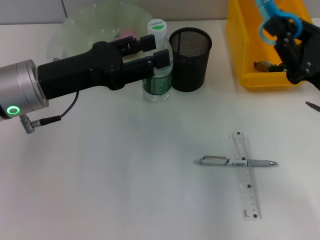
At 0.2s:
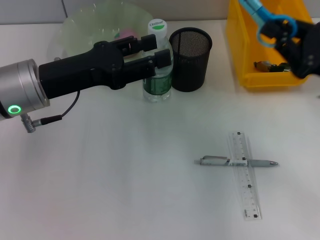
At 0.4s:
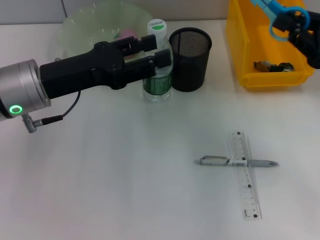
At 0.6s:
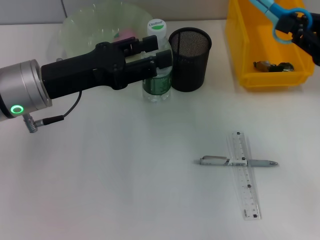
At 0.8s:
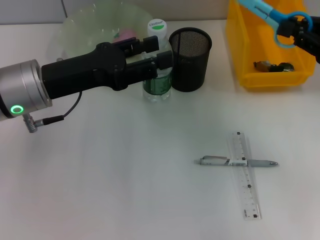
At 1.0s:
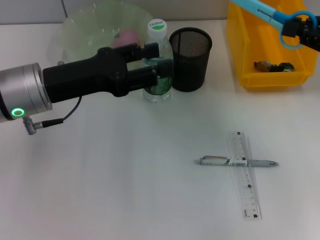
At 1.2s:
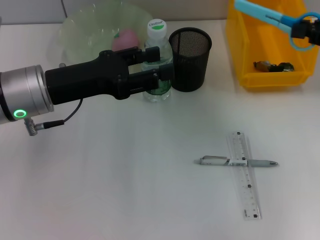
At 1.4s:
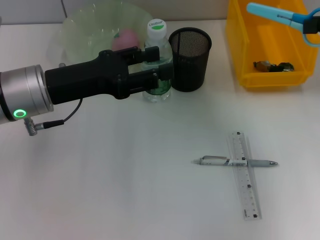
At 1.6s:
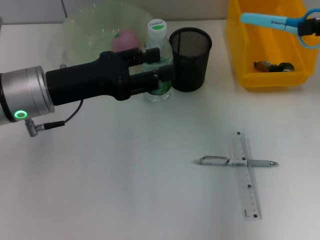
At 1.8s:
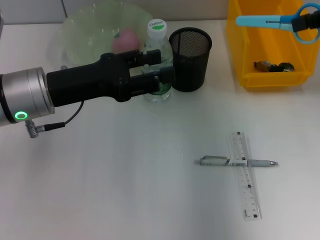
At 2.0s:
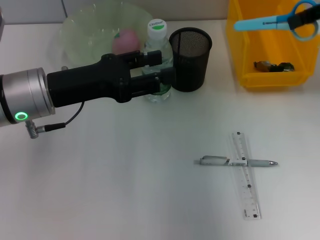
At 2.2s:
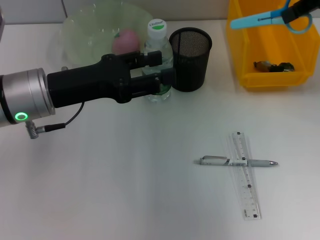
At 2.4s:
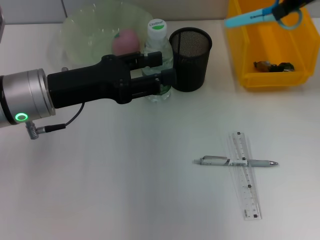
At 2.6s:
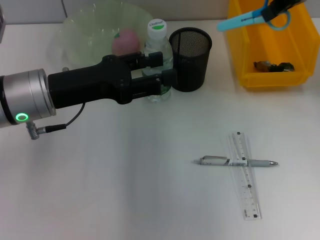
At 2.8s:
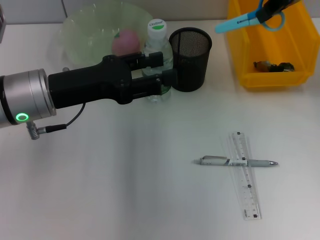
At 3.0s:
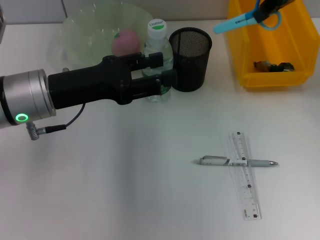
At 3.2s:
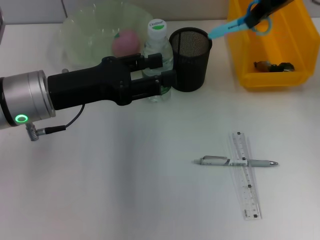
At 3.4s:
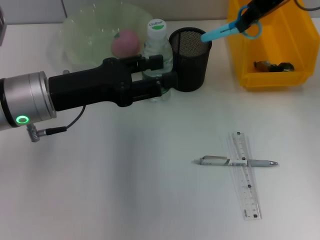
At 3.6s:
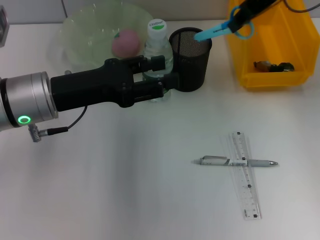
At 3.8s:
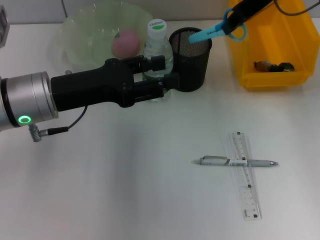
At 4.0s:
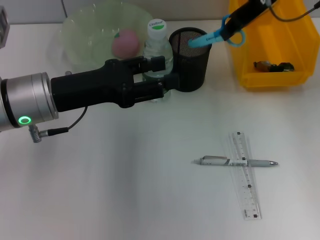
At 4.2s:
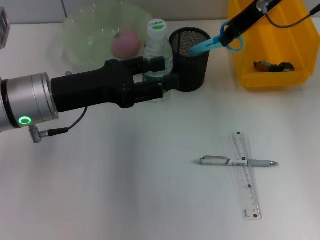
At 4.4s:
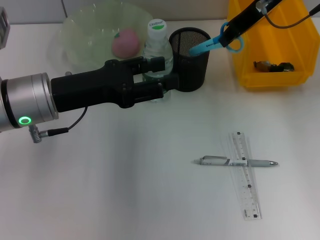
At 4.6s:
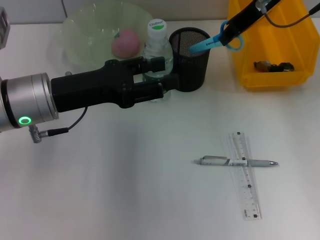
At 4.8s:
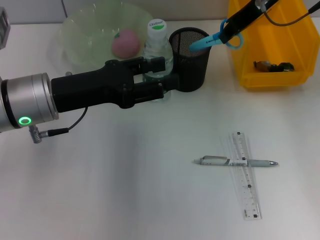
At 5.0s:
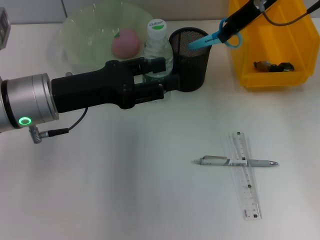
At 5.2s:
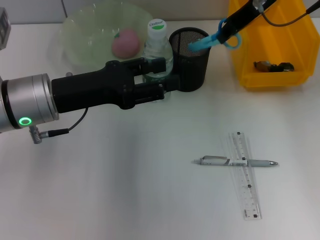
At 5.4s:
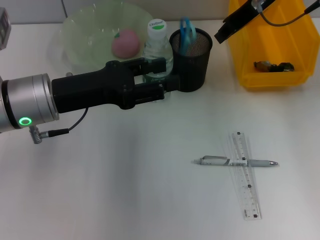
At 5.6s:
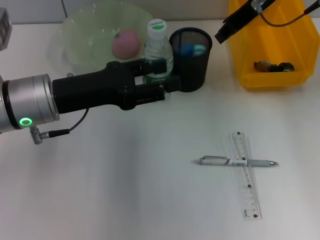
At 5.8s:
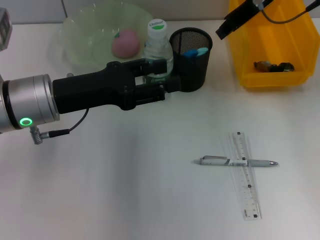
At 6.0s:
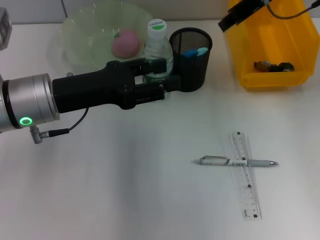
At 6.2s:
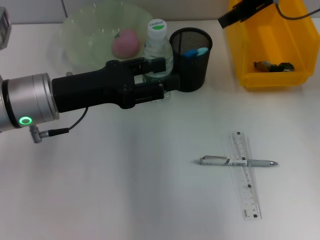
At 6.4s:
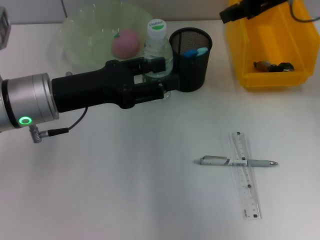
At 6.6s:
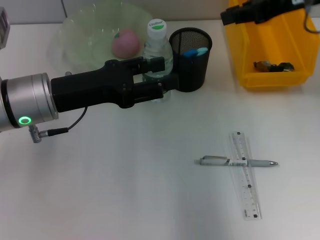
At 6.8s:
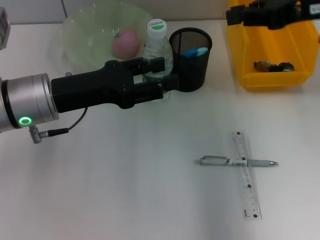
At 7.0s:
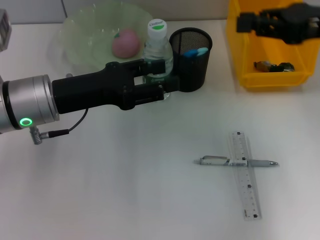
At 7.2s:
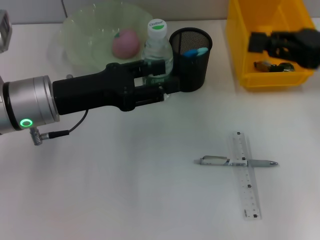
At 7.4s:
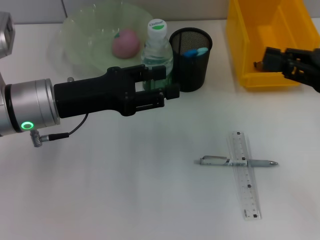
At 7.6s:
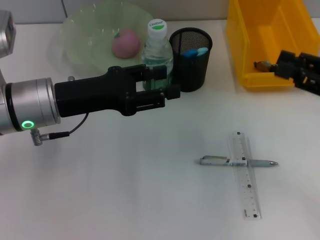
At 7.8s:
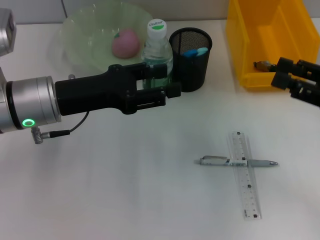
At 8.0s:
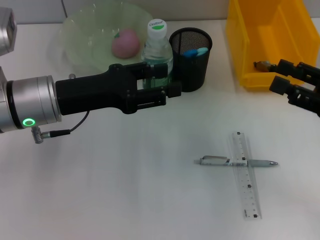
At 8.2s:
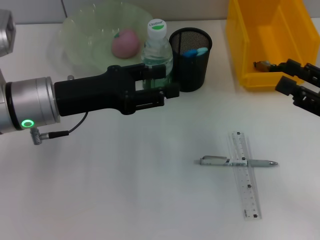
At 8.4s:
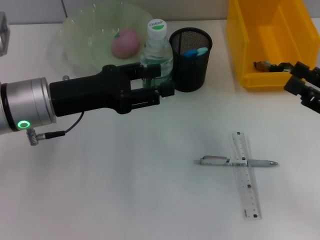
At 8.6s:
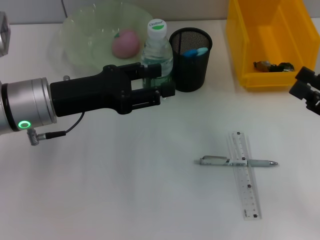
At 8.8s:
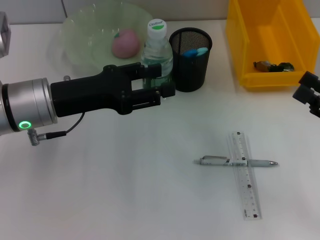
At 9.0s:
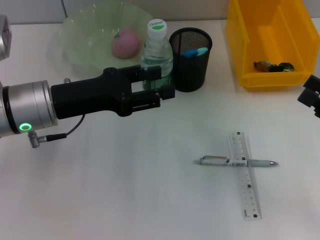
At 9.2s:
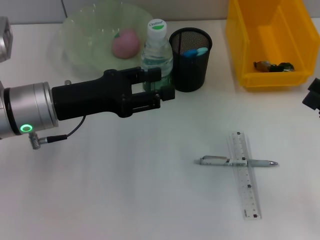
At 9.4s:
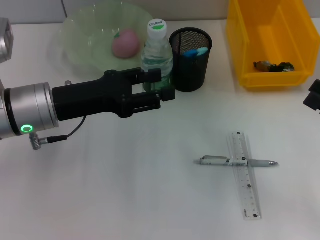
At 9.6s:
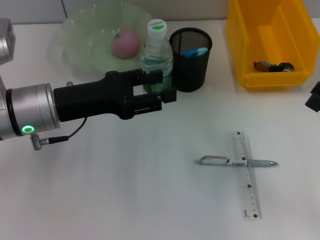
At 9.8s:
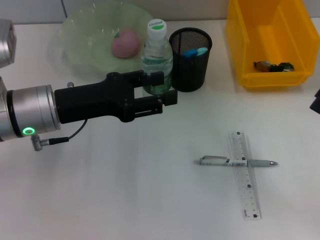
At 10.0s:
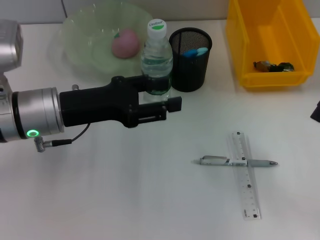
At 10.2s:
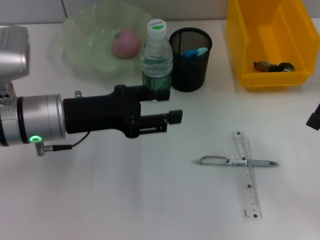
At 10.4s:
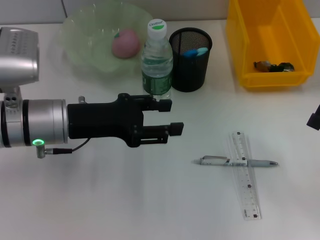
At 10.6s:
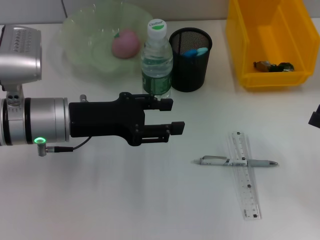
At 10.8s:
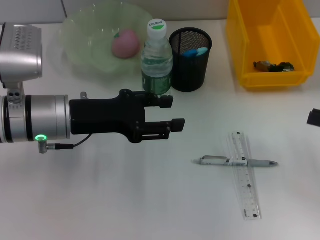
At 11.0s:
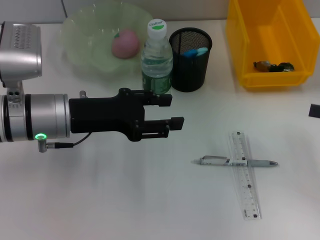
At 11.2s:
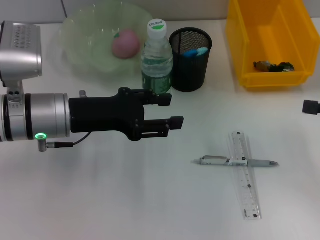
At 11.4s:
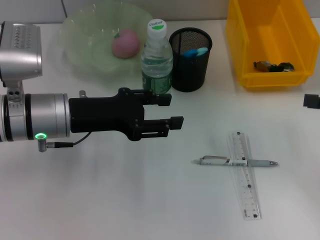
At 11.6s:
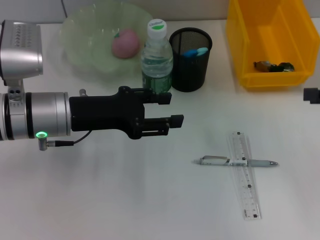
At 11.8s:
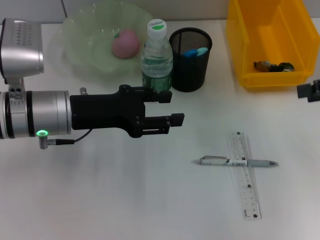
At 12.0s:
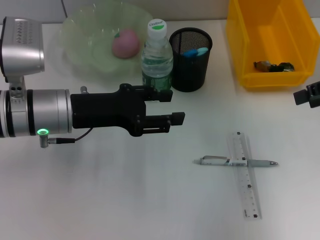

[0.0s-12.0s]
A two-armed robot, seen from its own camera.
Step, 0.0s to 5.6s: Place the blue scissors into the pen holder with the right hand.
0.0s to 1.6s: The right gripper shifts about 15 cm upward.
1.6s to 3.0s: The right gripper goes approximately 15 cm to the left and forward.
3.0s to 4.4s: The right gripper is displaced downward and to the left by some 5 cm.
4.4s to 6.0s: There are only small adjustments of the grippers.
6.0s to 7.6s: The right gripper heads backward, to the right and downward, covering approximately 25 cm.
7.6s to 9.0s: The right gripper is displaced backward by about 5 cm, and opens.
9.0s to 10.4s: The grippers move only a little.
10.4s to 12.0s: The right gripper heads forward and upward, covering roughly 20 cm.

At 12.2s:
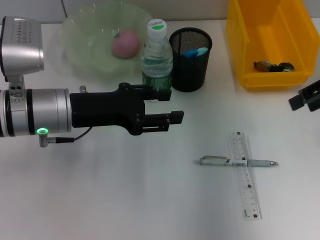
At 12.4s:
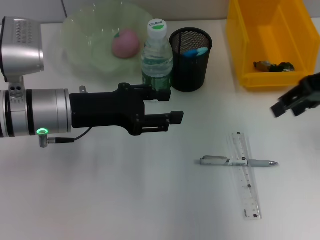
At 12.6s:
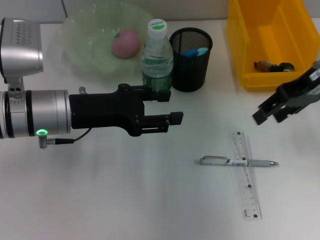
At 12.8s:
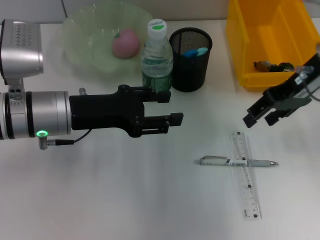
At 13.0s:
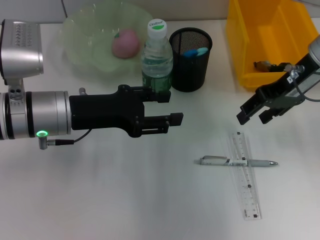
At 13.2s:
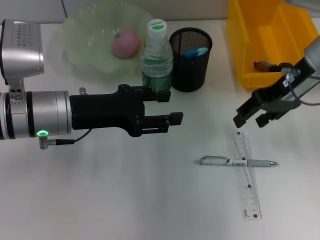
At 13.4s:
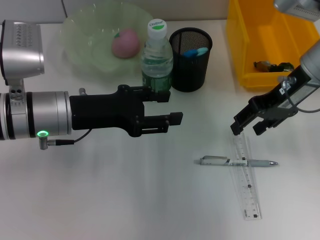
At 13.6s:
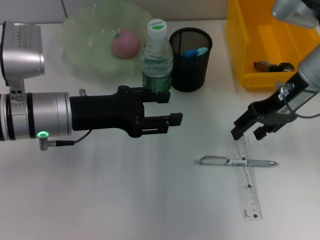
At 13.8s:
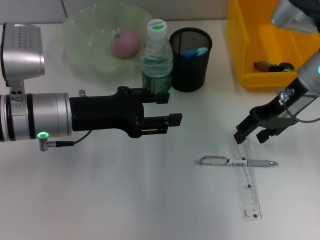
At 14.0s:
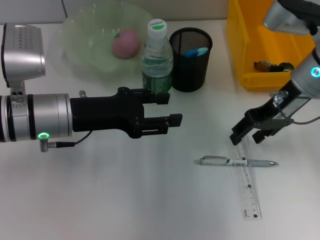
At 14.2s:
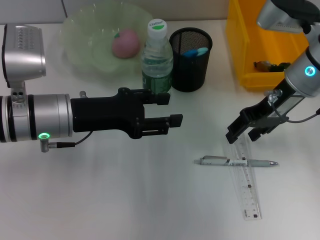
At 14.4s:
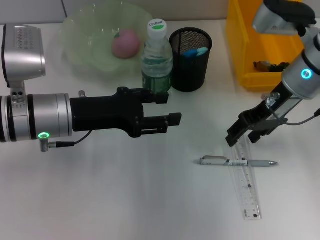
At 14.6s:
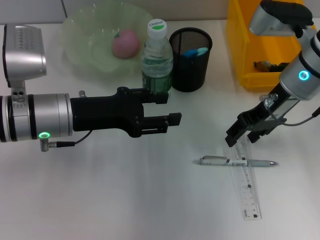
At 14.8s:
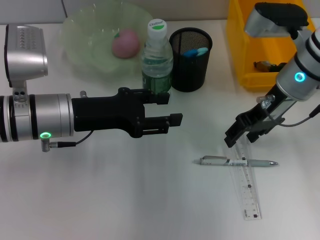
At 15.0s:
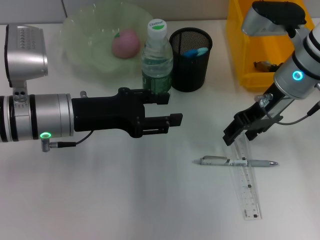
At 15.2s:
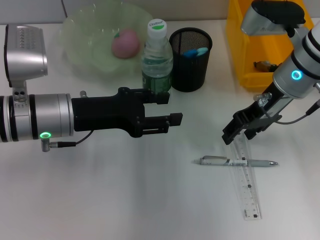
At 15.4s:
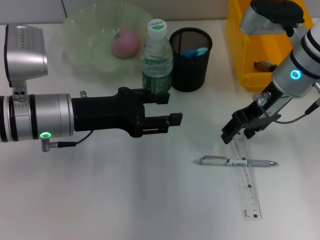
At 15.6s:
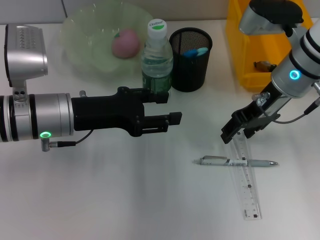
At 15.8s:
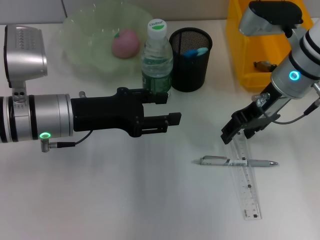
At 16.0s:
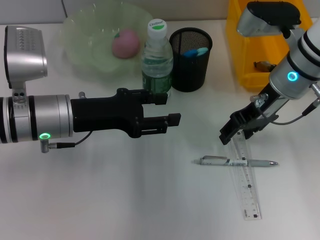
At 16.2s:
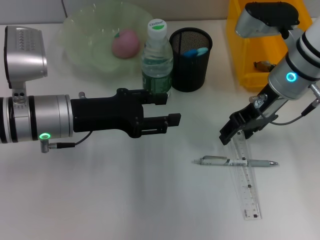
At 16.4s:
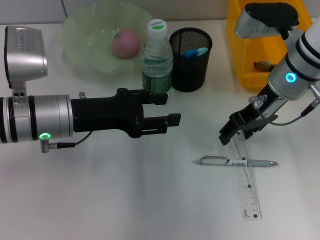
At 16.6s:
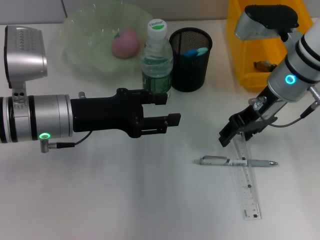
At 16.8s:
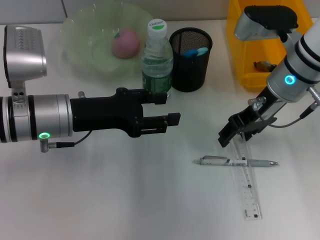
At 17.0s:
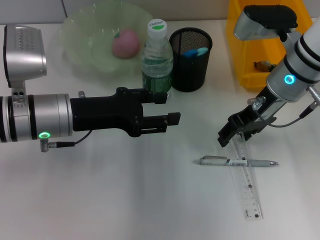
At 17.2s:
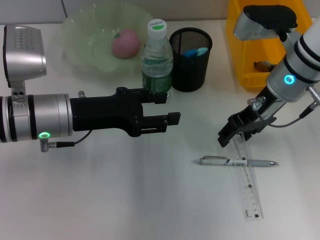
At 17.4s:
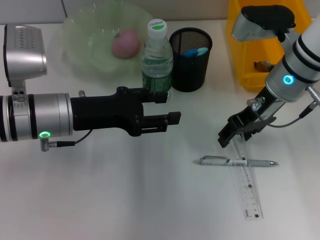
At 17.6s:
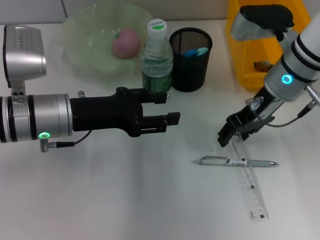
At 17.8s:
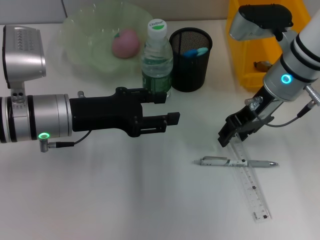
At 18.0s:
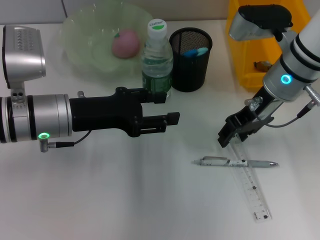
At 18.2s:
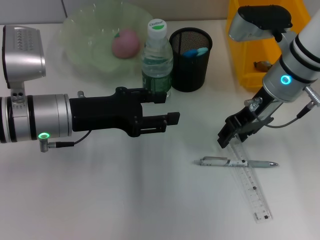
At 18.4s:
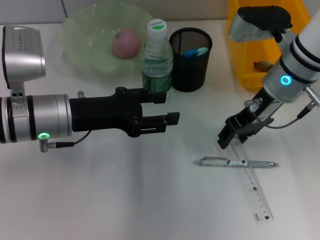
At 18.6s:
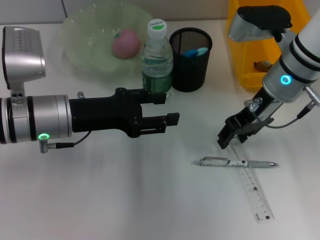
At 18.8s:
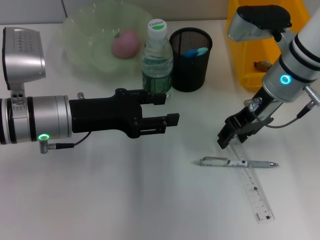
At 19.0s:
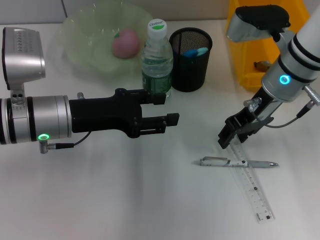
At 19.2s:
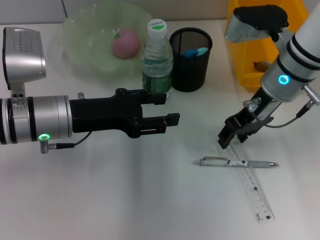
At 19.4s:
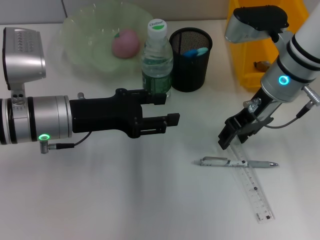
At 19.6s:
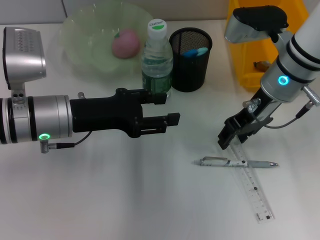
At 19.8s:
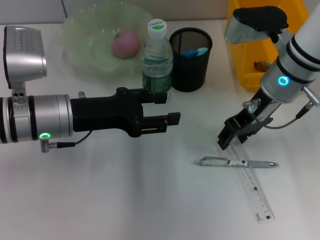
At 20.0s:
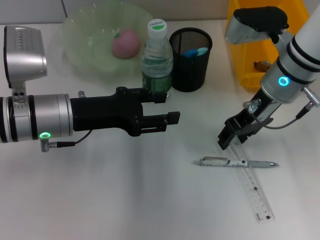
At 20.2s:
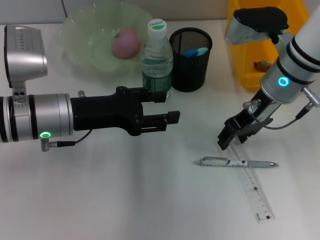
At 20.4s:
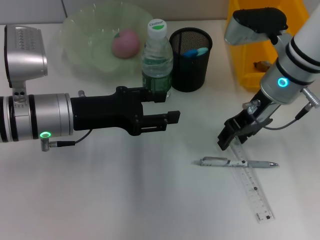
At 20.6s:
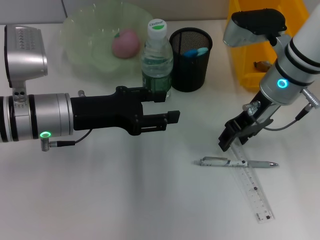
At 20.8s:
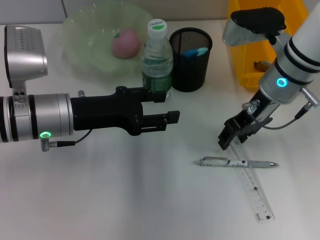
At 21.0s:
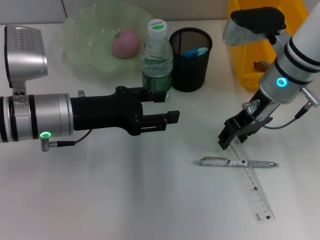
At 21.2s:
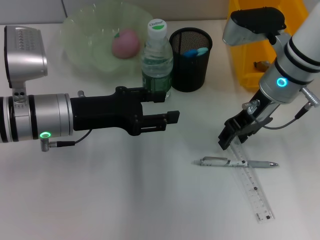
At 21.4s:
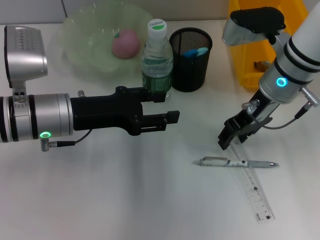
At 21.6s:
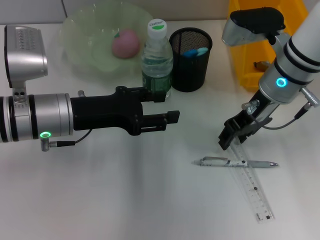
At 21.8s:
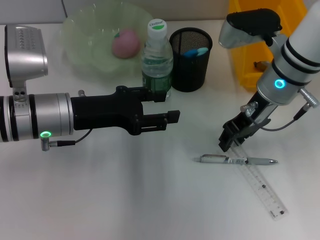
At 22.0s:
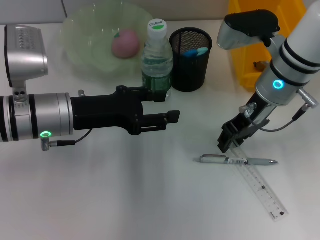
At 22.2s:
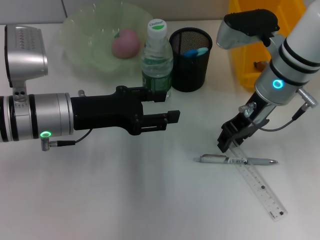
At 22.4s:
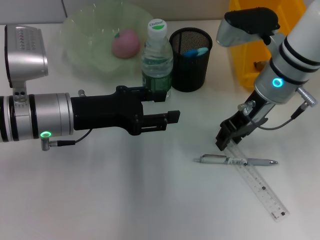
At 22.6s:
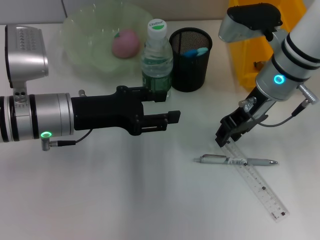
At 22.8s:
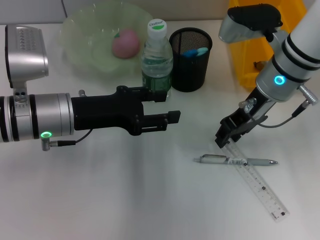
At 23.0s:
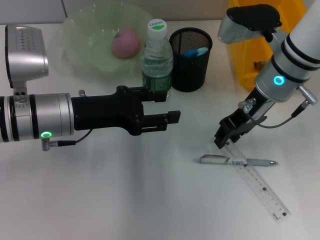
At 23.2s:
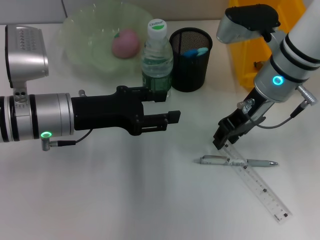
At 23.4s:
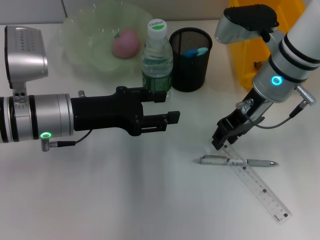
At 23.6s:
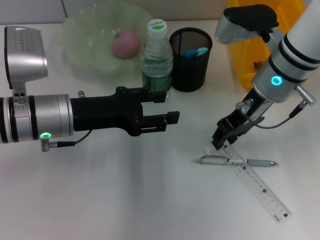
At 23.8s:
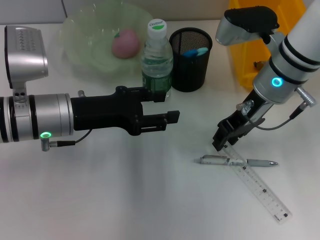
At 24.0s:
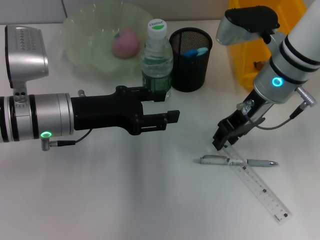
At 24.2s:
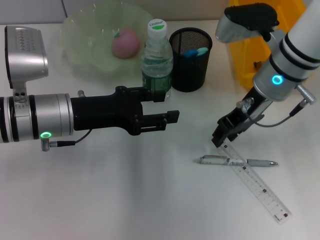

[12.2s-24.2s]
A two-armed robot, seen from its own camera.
12.2s to 13.8s: The right gripper moves to the left and downward, roughly 10 cm.
13.8s to 15.2s: The grippers move only a little.
15.2s to 16.6s: The two grippers keep their place.
16.6s to 21.2s: The two grippers keep their place.
21.2s to 24.2s: The two grippers keep their place.
